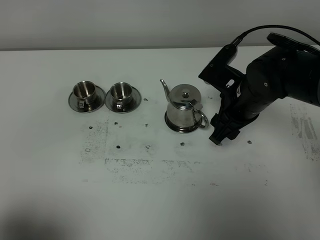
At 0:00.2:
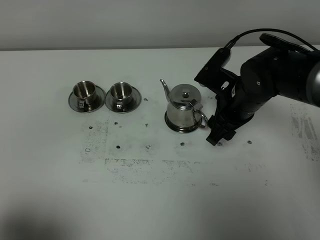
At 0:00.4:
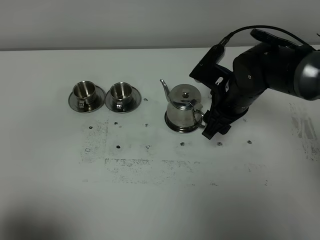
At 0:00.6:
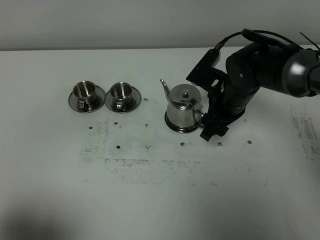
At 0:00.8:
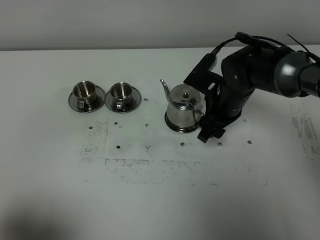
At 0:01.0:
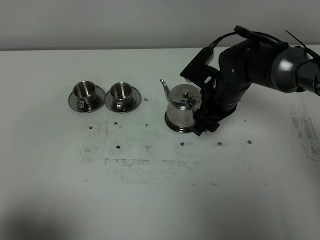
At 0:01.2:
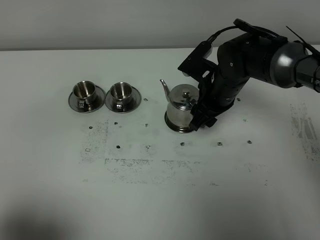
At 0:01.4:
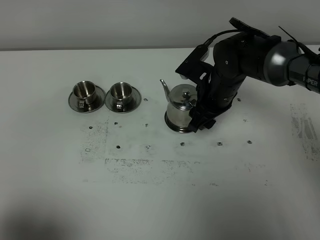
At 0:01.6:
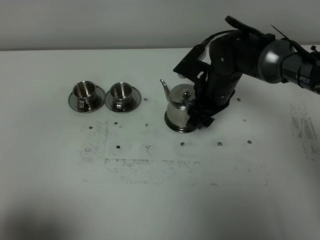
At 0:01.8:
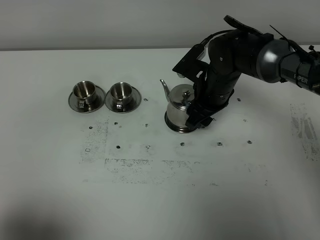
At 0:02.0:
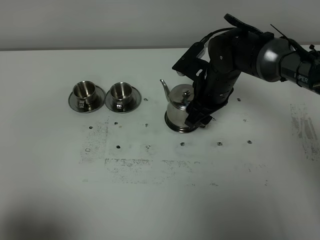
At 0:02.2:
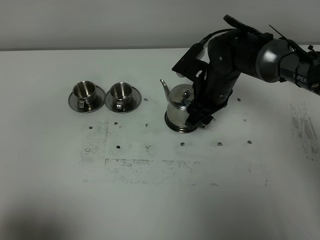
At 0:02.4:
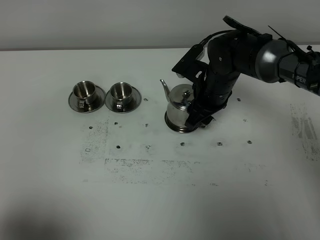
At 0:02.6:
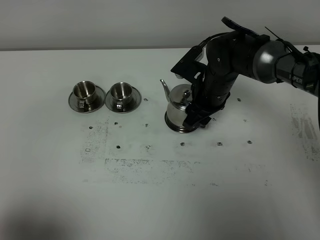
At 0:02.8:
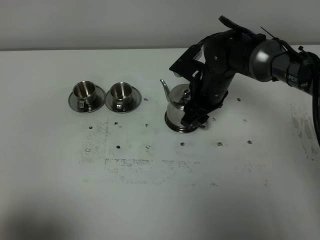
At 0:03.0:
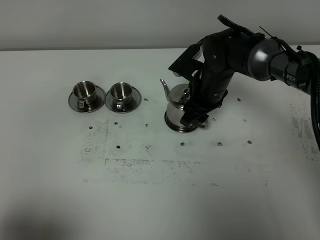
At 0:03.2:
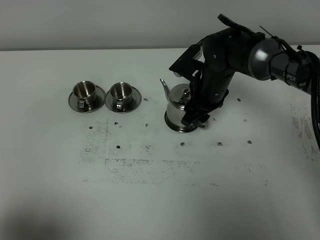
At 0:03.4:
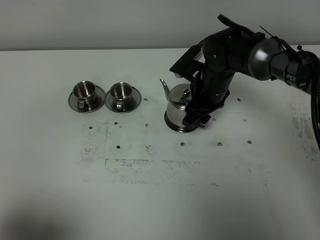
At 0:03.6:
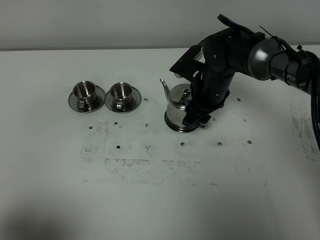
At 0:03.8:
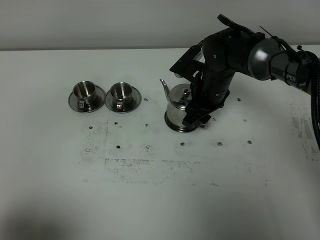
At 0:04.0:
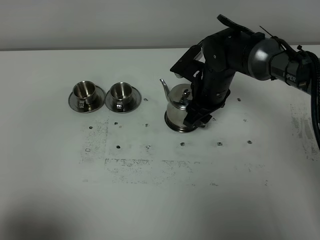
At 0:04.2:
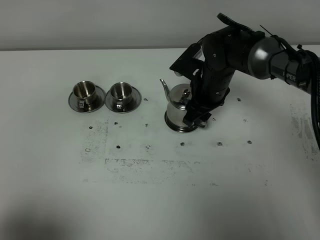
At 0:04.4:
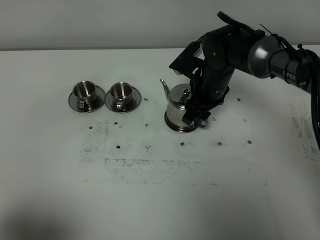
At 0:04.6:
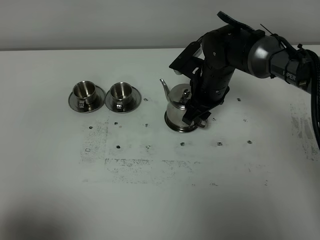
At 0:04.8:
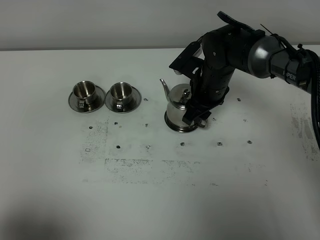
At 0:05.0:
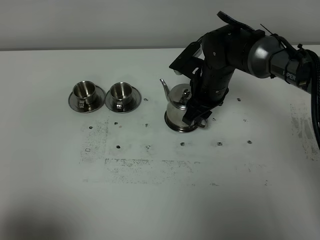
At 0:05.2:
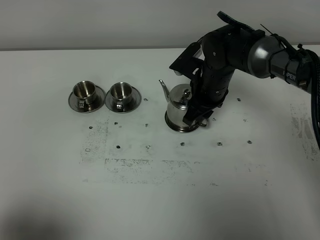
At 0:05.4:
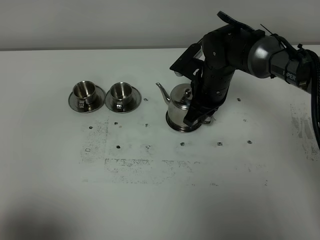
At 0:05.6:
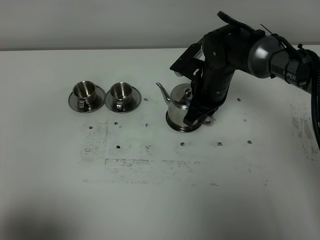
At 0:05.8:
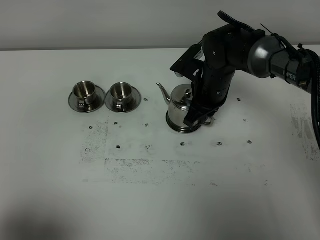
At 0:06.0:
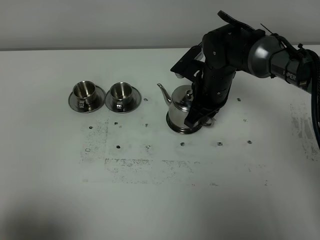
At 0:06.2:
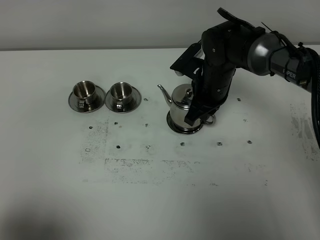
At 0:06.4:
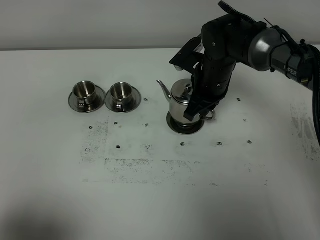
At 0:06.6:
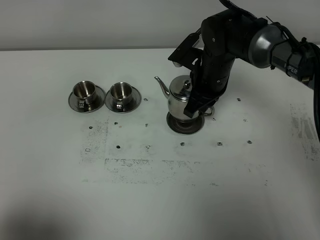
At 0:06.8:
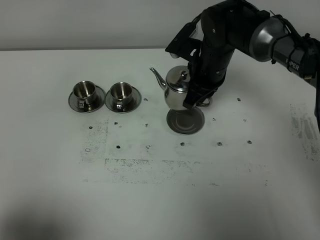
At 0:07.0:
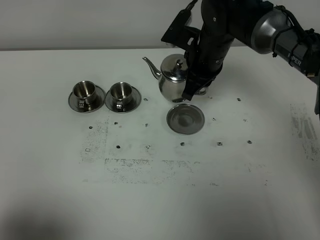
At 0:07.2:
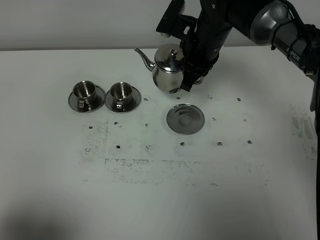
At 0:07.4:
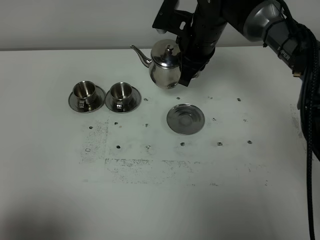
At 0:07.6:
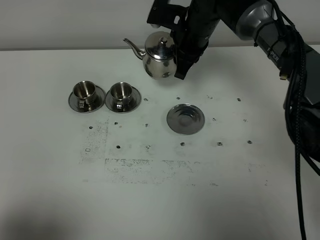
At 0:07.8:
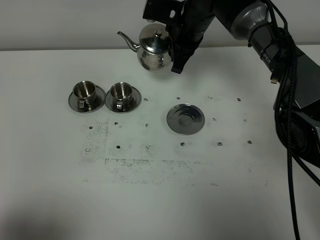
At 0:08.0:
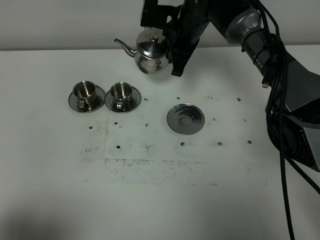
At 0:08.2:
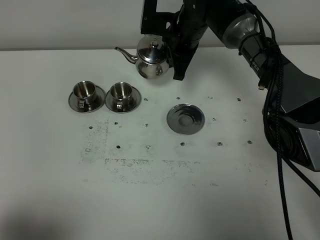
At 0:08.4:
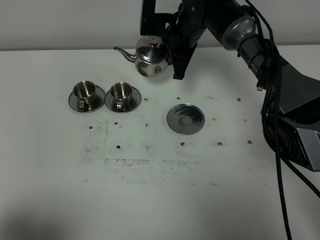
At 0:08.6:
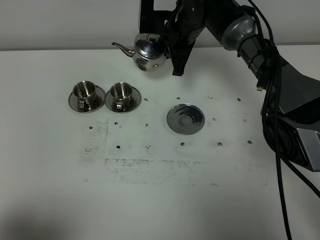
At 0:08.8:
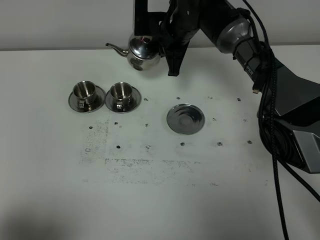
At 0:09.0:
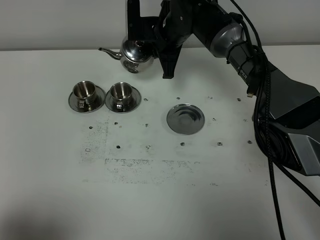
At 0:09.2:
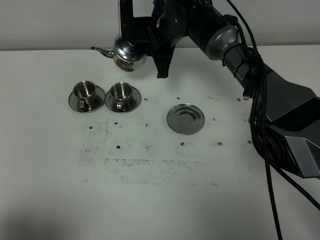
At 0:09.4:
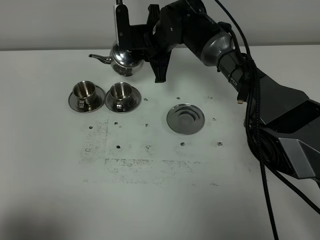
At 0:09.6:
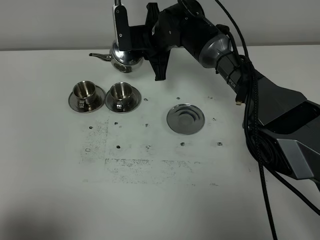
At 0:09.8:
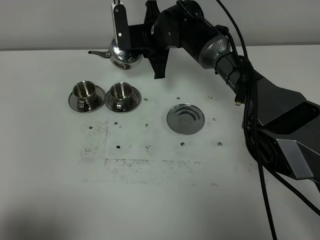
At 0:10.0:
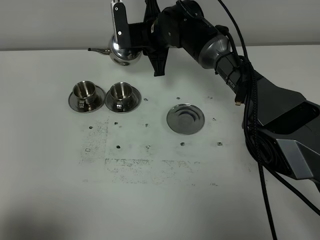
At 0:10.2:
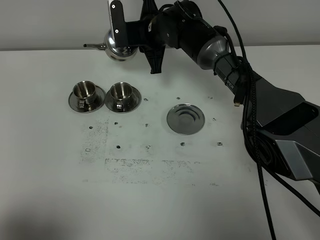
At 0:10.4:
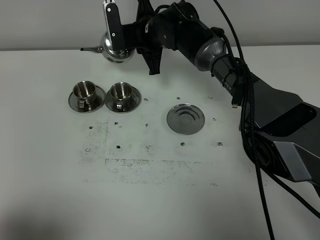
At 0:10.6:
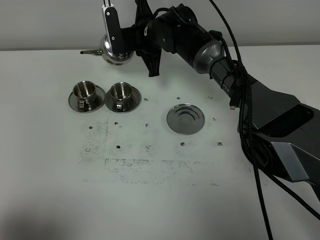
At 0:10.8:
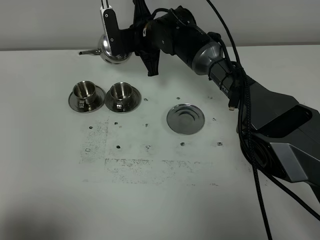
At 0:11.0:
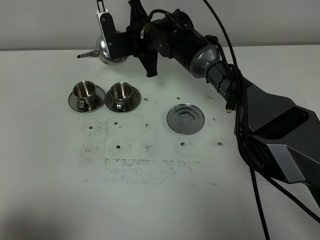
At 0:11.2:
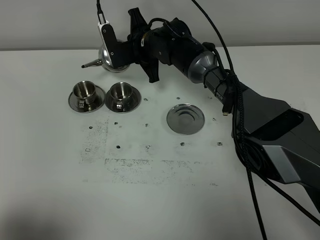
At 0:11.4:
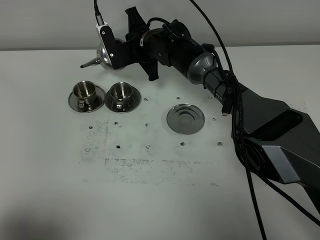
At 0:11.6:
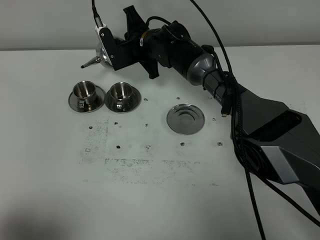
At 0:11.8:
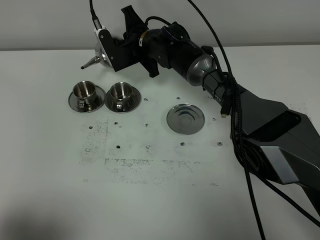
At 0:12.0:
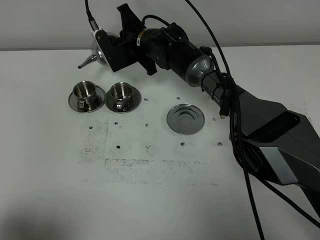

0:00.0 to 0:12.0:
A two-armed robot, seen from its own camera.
Task of the whole recording: grasp the stainless steel teapot and pour the tea into the two stainless steel teacups one by one, put the stainless steel teapot back in its original place.
Step, 0:00.0 to 0:06.4: Pick up the teapot with the right gripper.
0:00.0 to 0:01.6: The right gripper moves forward, roughly 5 cm.
0:01.6 to 0:03.0: There are only small adjustments of the grippers.
0:03.0 to 0:04.4: Both grippers stay put.
0:04.4 to 0:06.0: The right gripper closes up.
0:06.0 to 0:07.6: The right gripper heads upward and forward, covering about 10 cm.
0:07.6 to 0:09.0: The right gripper changes place by about 5 cm.
0:09.0 to 0:10.4: There are only small adjustments of the grippers.

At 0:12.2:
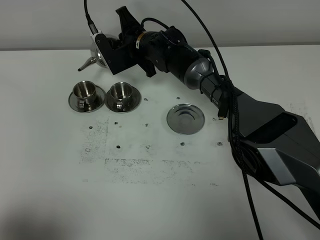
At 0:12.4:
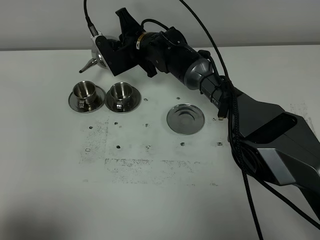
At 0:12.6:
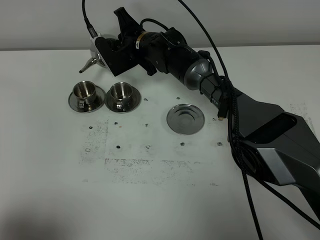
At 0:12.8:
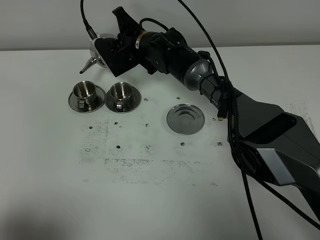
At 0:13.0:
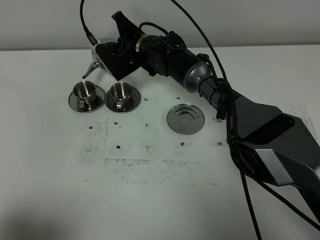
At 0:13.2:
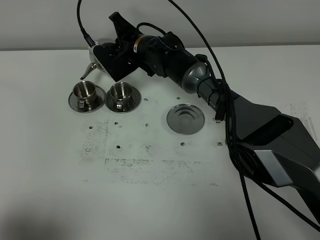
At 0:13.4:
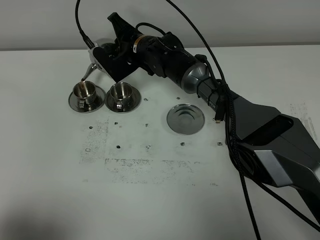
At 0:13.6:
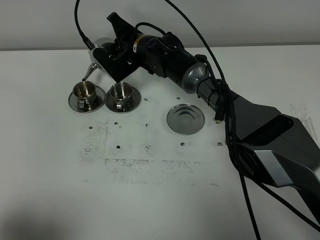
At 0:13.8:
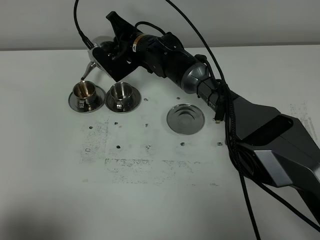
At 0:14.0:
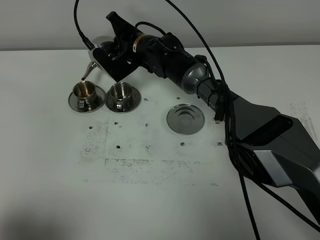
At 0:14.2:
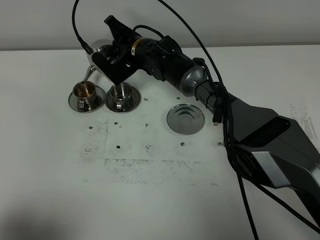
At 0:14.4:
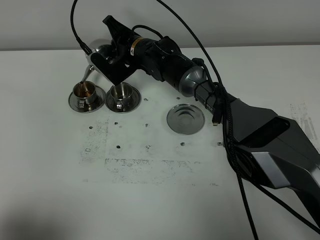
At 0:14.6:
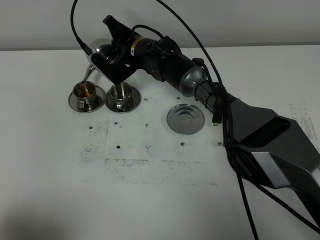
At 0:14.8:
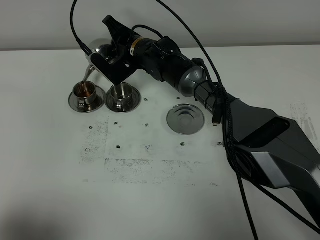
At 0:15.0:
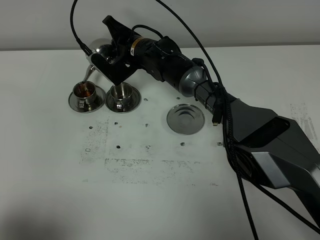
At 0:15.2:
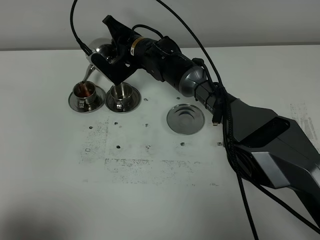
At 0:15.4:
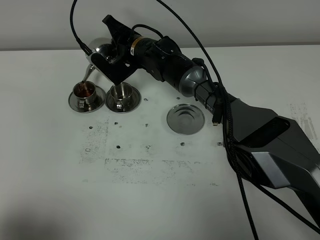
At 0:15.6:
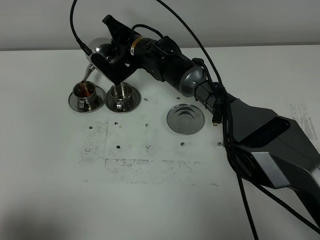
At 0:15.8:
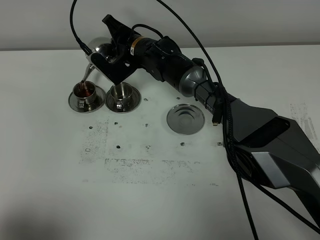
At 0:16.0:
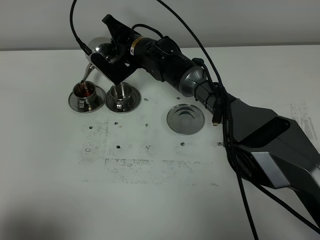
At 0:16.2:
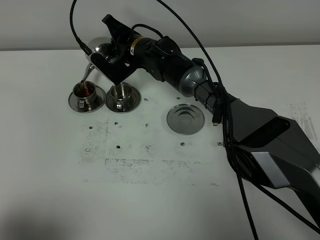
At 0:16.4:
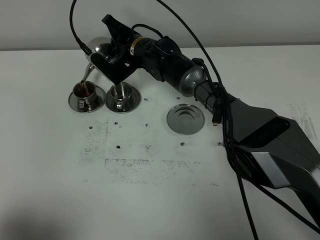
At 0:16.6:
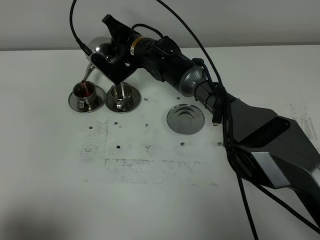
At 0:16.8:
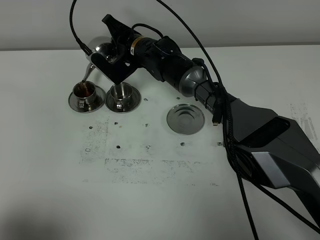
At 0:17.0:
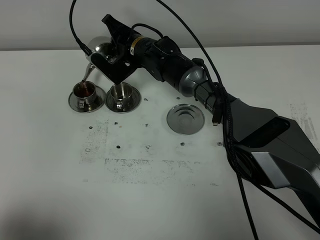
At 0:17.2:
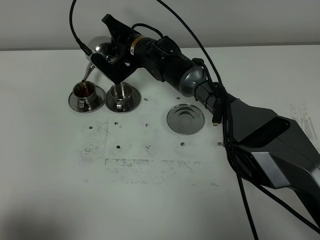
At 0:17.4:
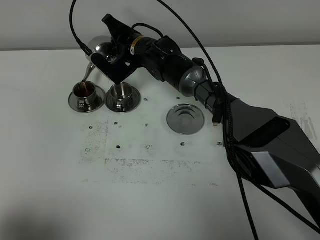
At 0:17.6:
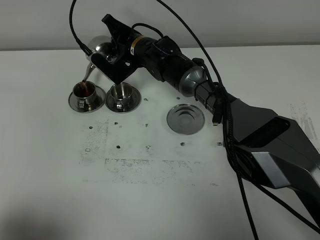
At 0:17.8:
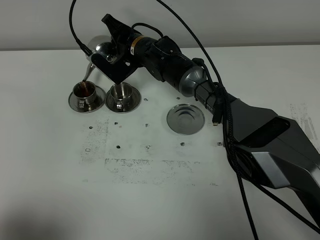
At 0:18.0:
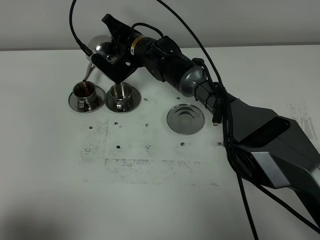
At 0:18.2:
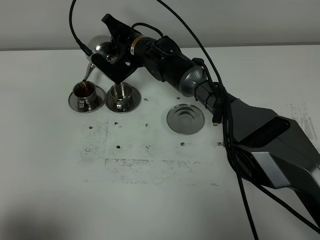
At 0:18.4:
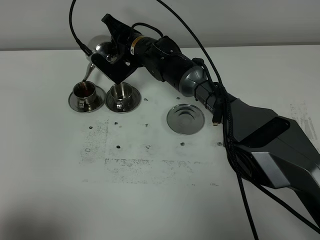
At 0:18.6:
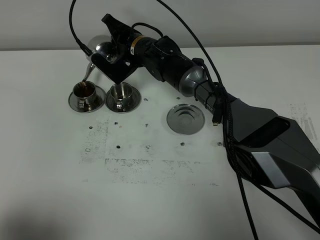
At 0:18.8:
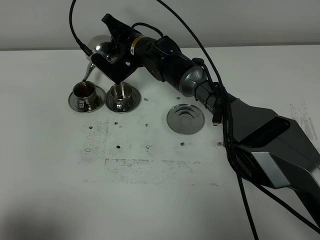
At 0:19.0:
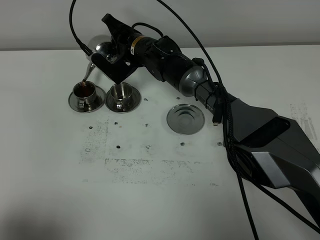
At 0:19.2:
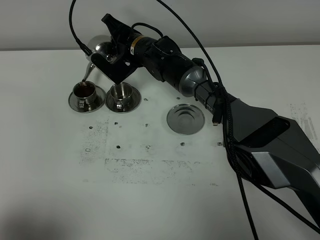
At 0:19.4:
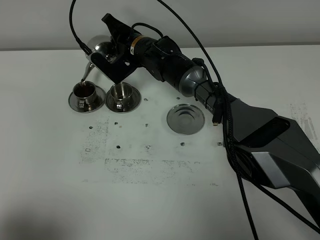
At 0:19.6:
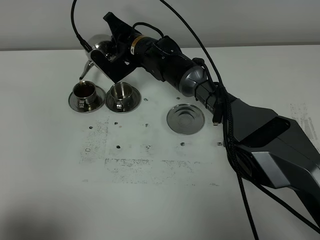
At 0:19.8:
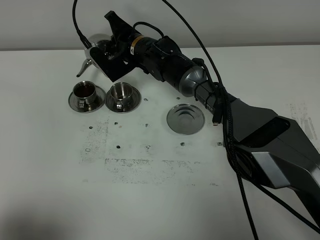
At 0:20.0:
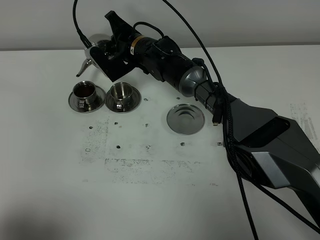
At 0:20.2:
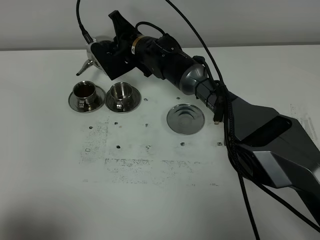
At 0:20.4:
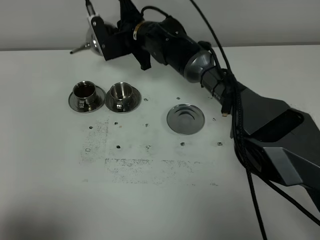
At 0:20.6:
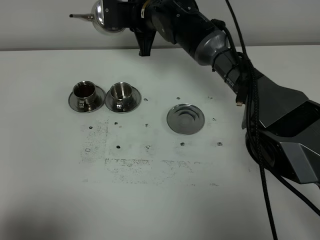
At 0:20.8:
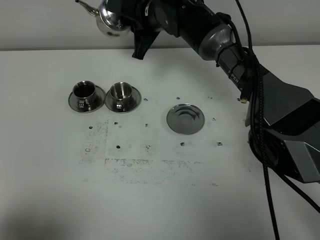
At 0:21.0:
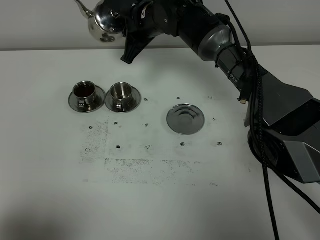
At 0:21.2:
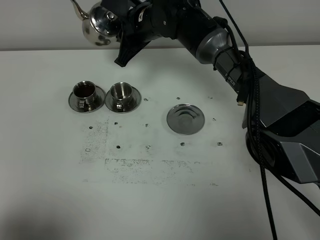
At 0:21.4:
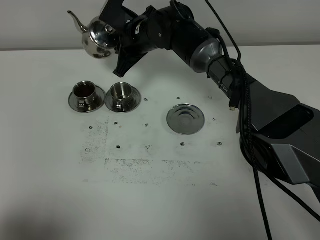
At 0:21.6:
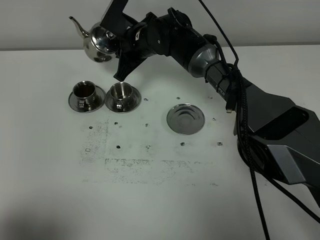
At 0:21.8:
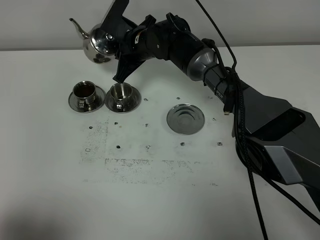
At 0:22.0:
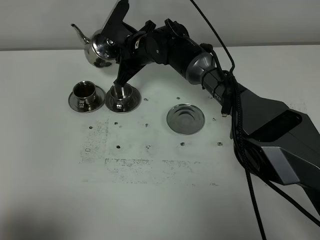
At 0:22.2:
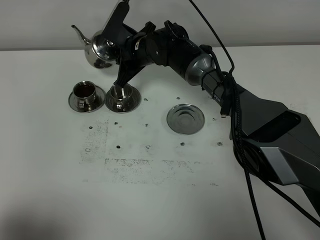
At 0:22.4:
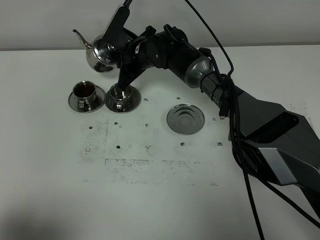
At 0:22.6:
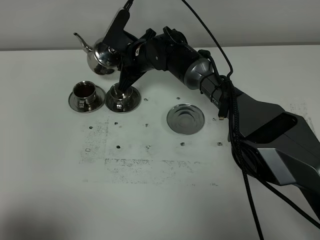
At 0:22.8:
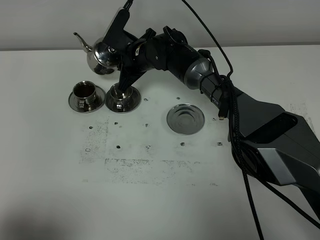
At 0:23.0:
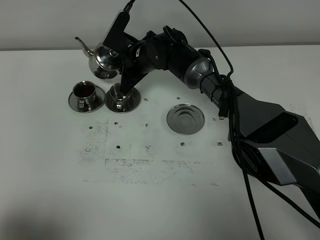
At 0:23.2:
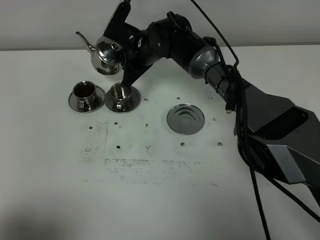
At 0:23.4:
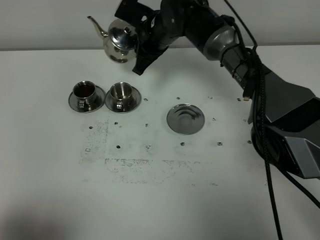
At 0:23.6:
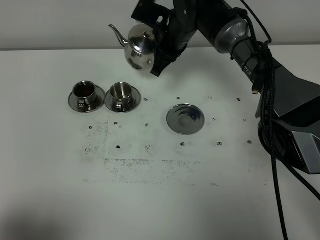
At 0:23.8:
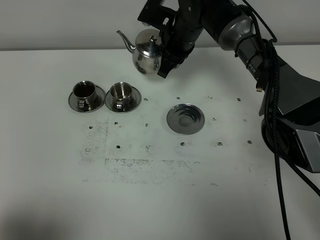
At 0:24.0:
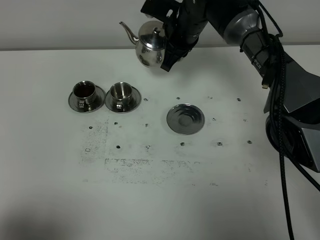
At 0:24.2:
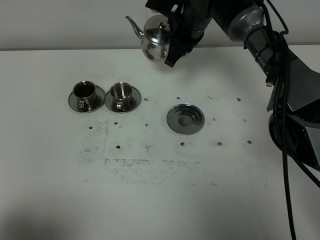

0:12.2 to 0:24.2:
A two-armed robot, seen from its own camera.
Task of the whole recording: grasp the stainless steel teapot and pour the tea into the two stainless steel teacups one by one, put the stainless steel teapot back in its original place.
0:12.2 to 0:13.8: There are only small adjustments of the grippers.
0:13.8 to 0:16.6: Neither gripper changes place.
0:16.6 to 0:18.2: Neither gripper changes place.
0:18.2 to 0:19.8: The grippers move only a little.
0:19.8 to 0:21.2: The right gripper travels upward by approximately 5 cm.
0:21.2 to 0:22.6: The right gripper shifts about 10 cm downward.
0:22.6 to 0:24.2: The right gripper travels upward and to the right by roughly 15 cm.
